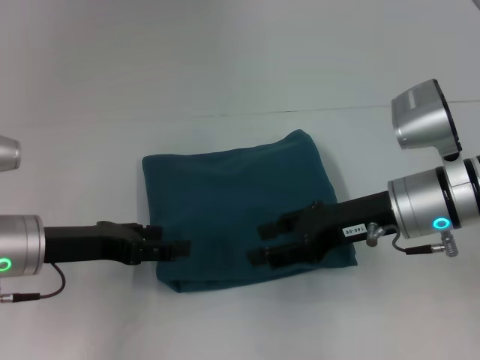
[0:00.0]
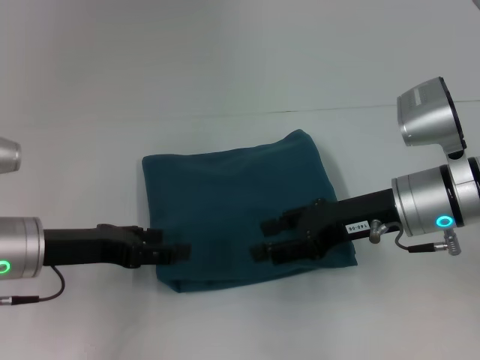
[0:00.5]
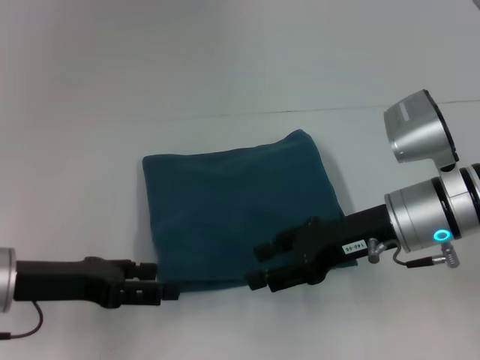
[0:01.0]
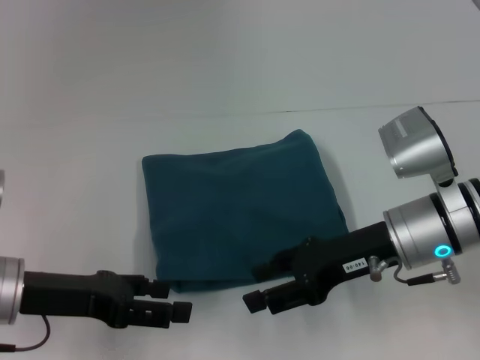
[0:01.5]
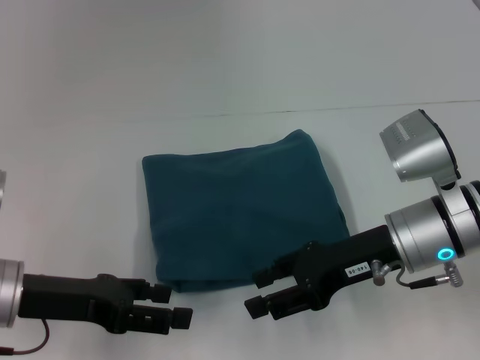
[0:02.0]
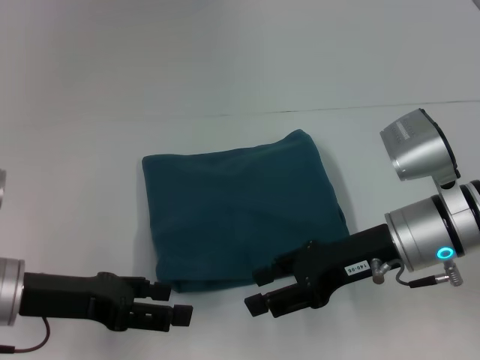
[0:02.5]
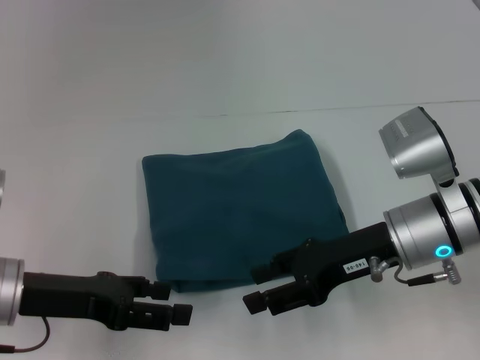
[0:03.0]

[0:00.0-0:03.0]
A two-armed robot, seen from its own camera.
0:01.5 to 0:03.0: Both grippers stay put.

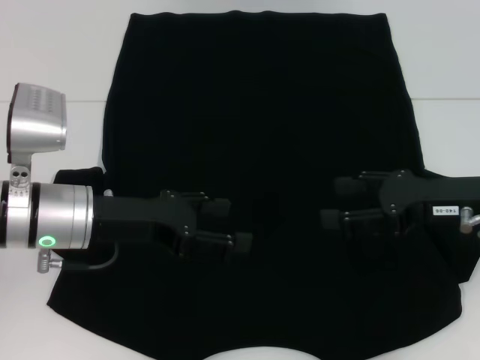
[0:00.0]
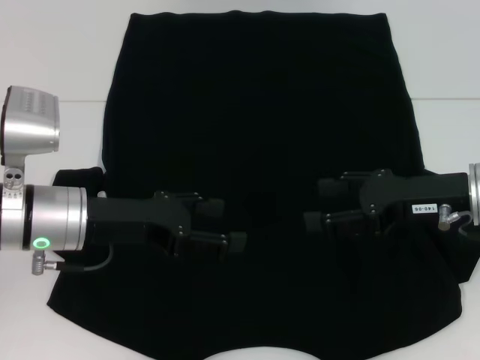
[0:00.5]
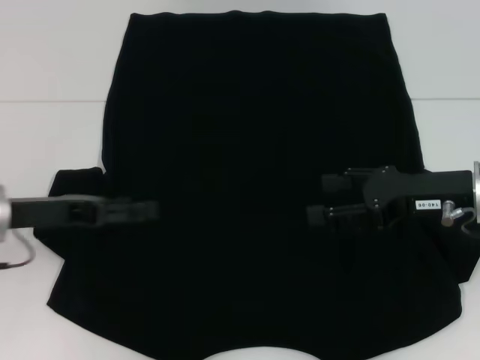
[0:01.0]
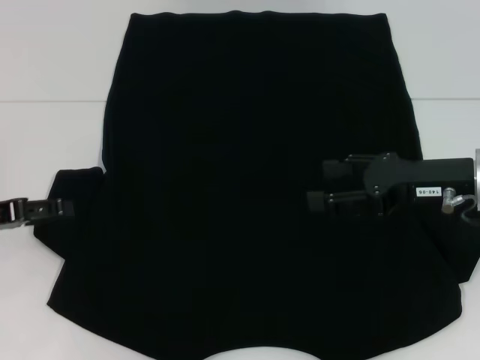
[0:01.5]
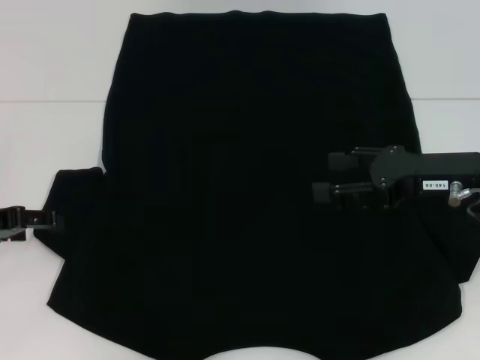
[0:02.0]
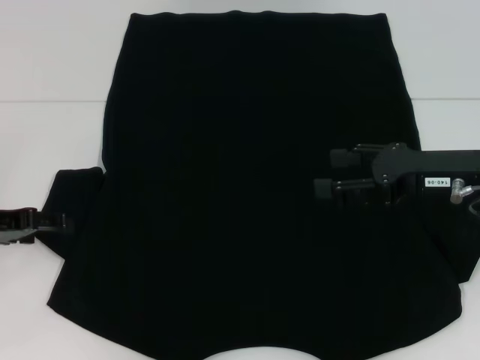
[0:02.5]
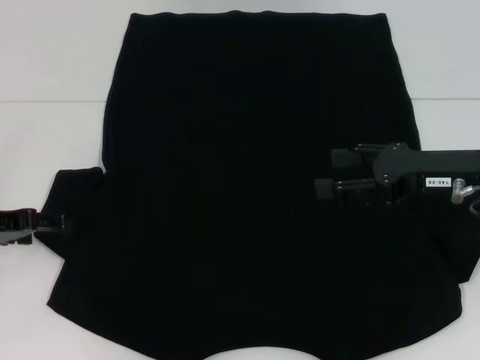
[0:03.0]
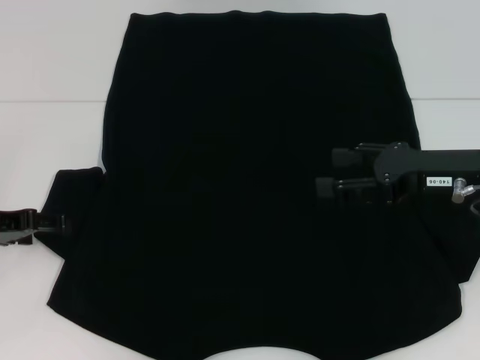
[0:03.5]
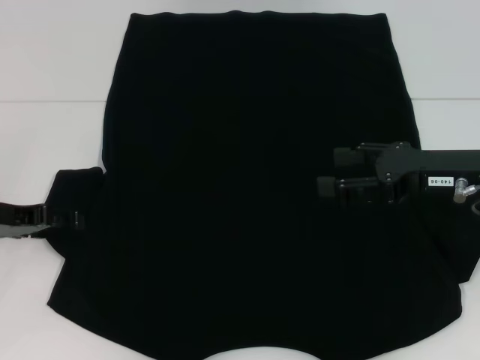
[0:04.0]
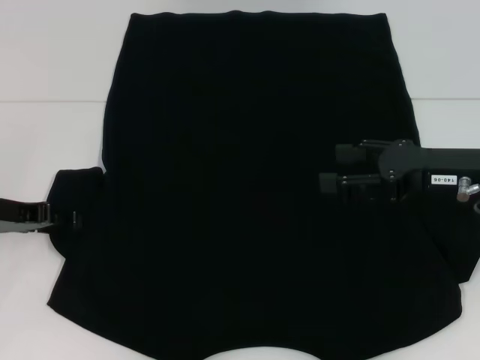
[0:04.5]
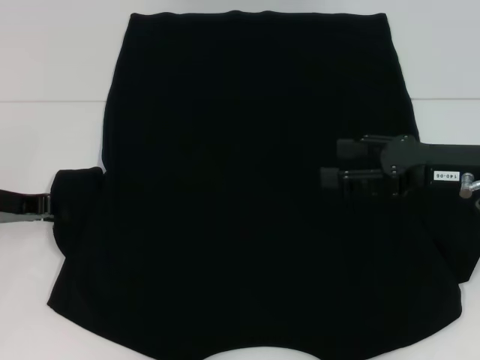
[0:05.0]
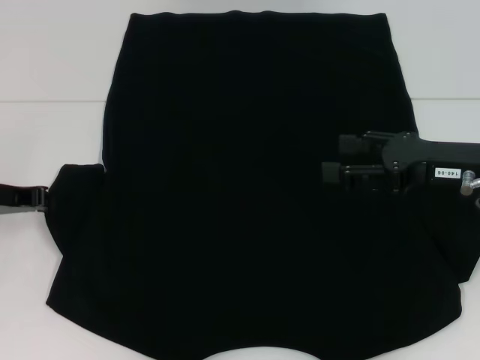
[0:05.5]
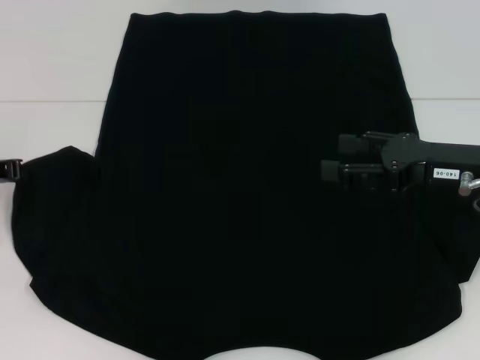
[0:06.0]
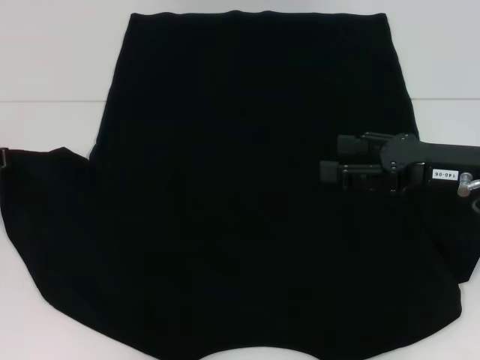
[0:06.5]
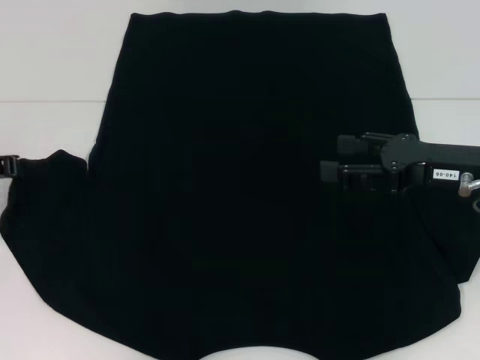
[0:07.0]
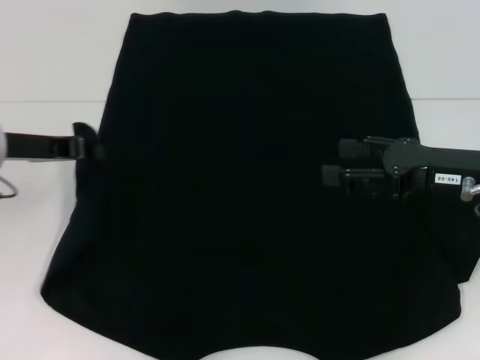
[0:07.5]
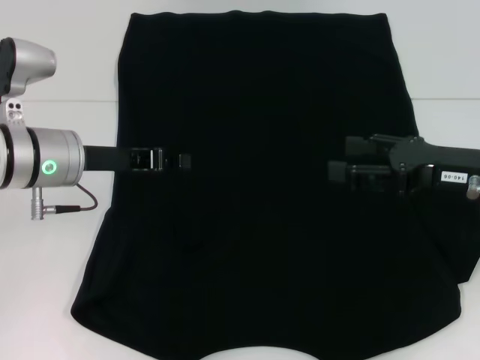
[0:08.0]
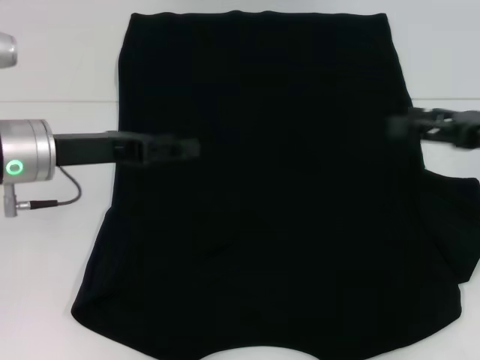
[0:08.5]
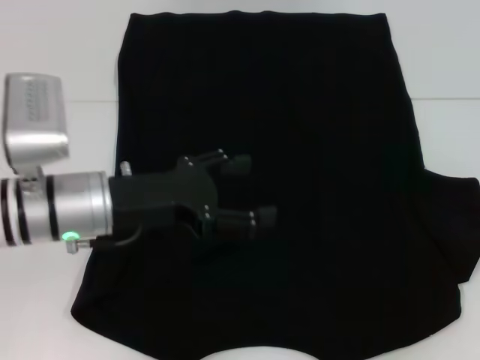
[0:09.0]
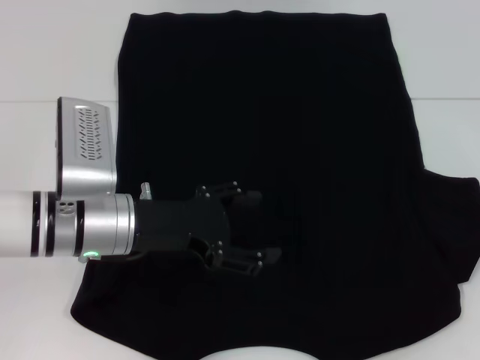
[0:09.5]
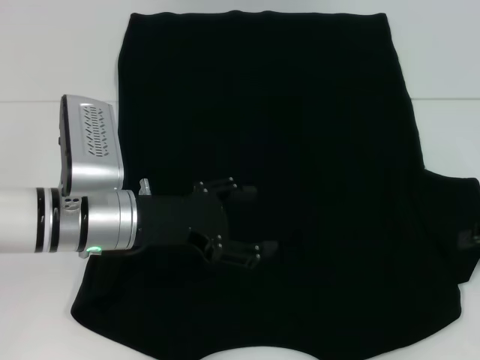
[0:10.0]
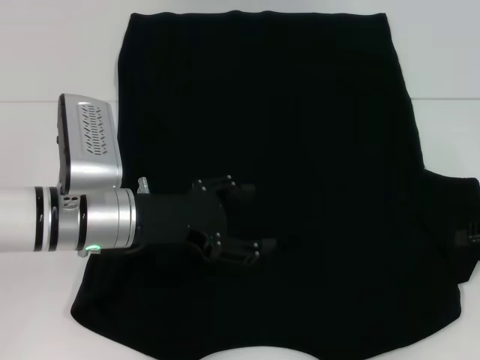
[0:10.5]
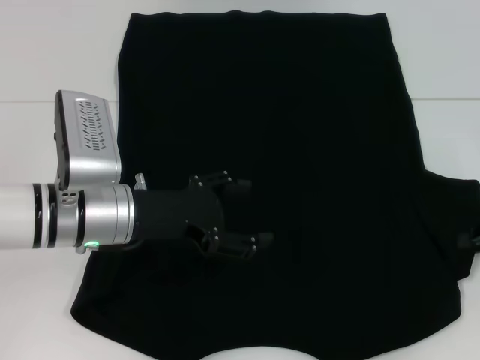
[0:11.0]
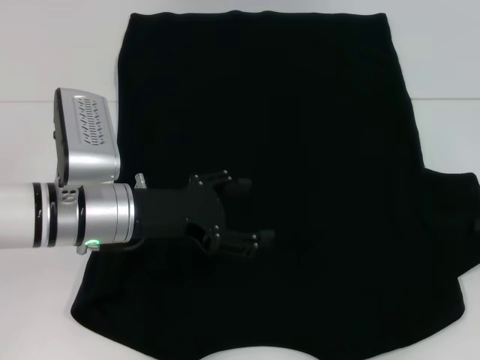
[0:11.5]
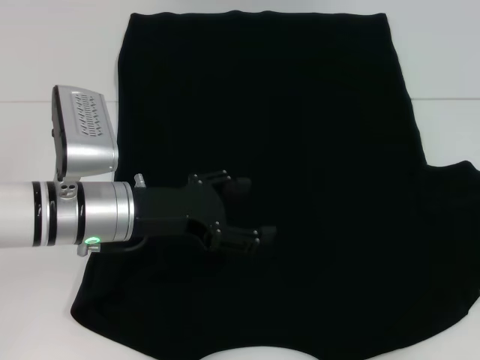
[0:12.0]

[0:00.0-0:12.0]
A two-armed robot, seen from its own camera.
Step, 0:00.0 to 0:08.5: Fold the bottom left sleeve with your left hand.
0:00.0 to 0:02.0: The left gripper shifts about 15 cm to the left.
0:02.0 to 0:04.0: There are only small adjustments of the grippers.
0:04.0 to 0:06.0: The left gripper closes its fingers.
0:06.0 to 0:08.0: The left gripper is displaced to the right by roughly 10 cm.
0:08.0 to 0:10.0: The left gripper moves roughly 5 cm, and opens its fingers. The right gripper travels to the right by approximately 10 cm.
0:10.0 to 0:12.0: The right gripper closes its fingers.

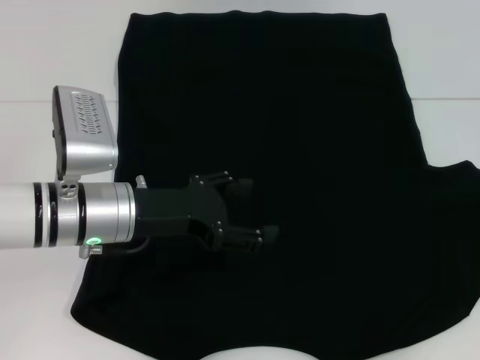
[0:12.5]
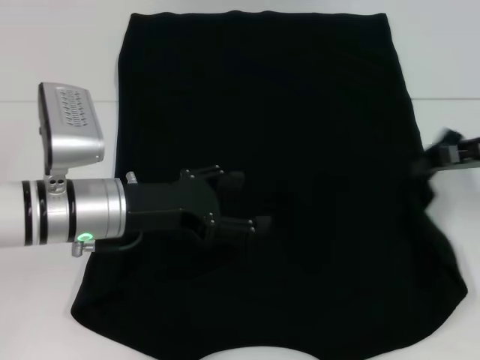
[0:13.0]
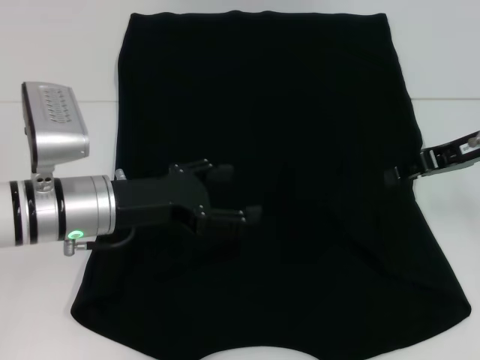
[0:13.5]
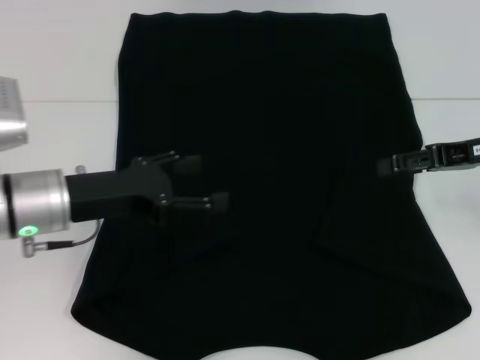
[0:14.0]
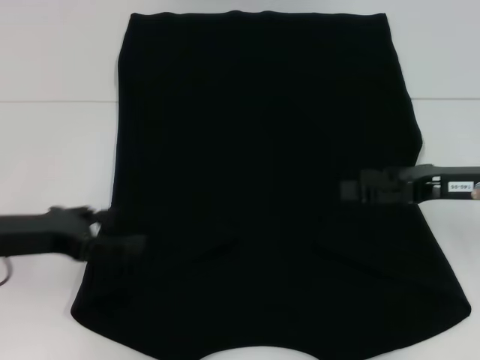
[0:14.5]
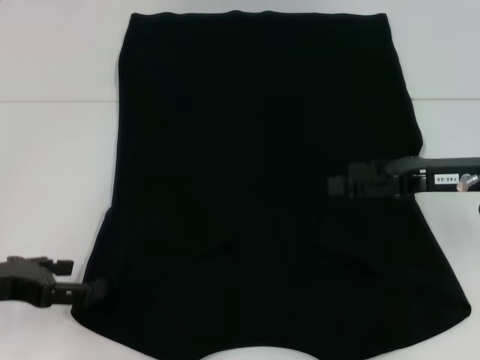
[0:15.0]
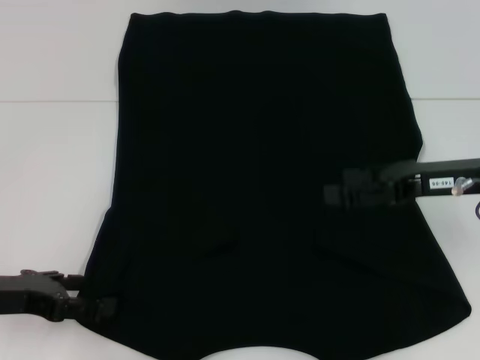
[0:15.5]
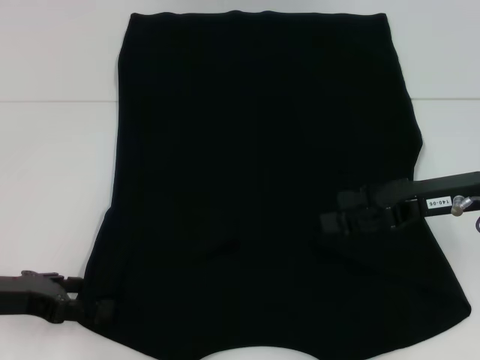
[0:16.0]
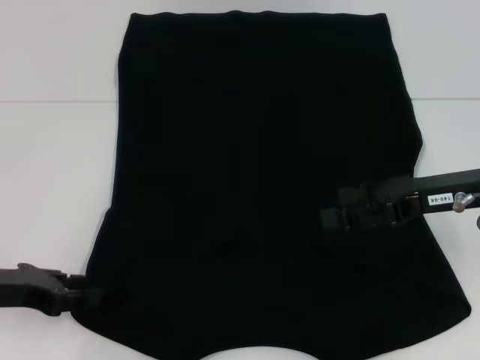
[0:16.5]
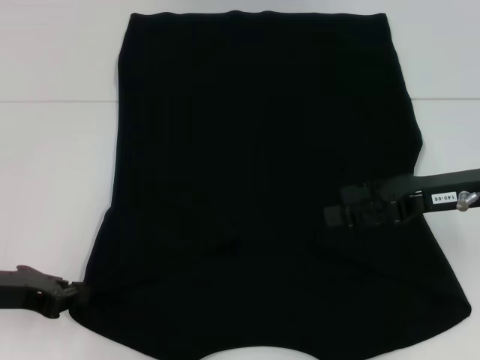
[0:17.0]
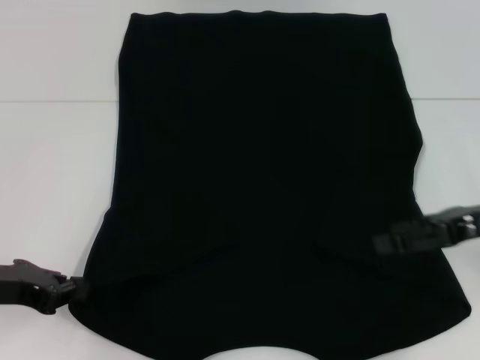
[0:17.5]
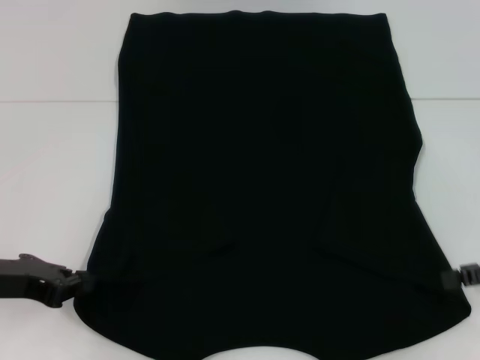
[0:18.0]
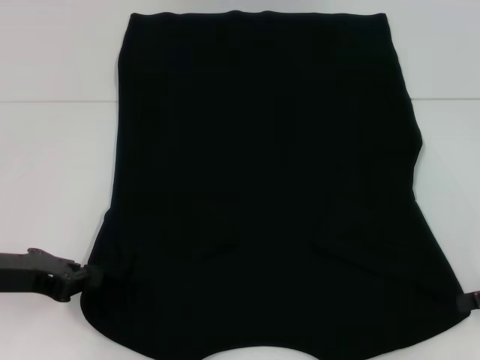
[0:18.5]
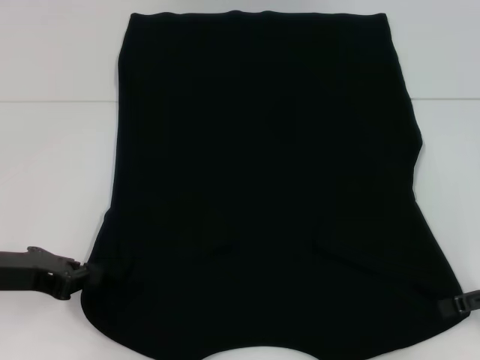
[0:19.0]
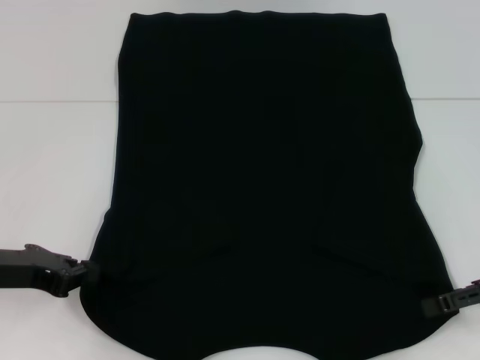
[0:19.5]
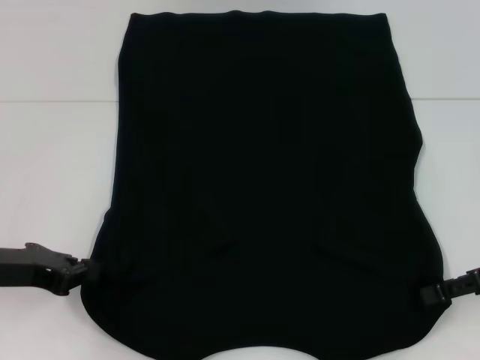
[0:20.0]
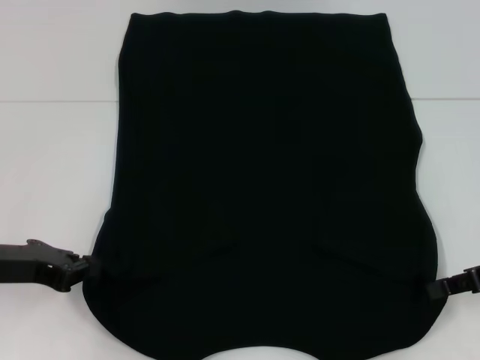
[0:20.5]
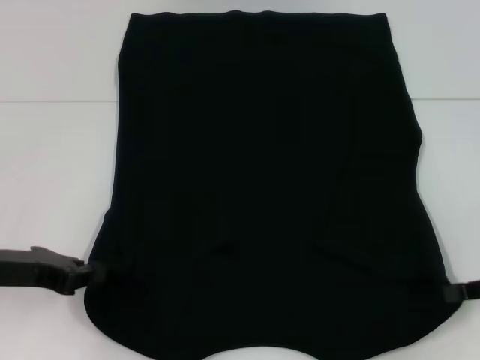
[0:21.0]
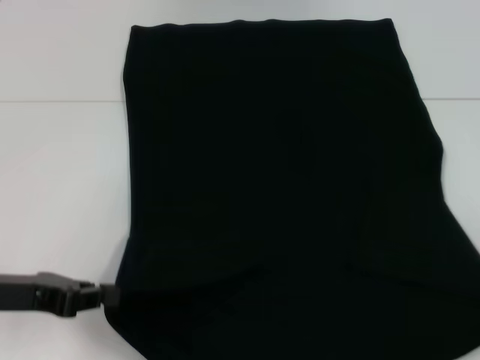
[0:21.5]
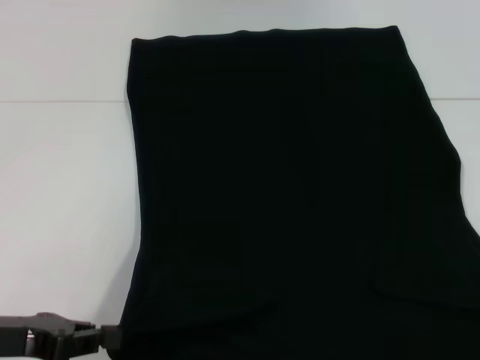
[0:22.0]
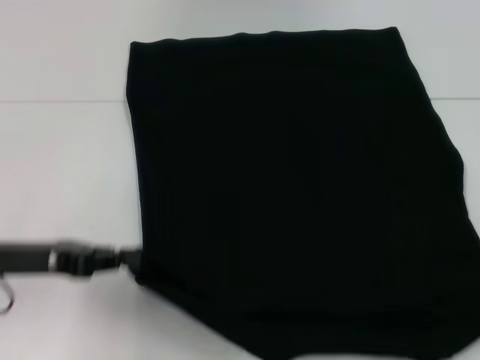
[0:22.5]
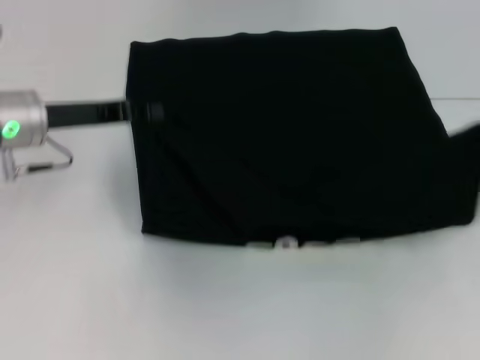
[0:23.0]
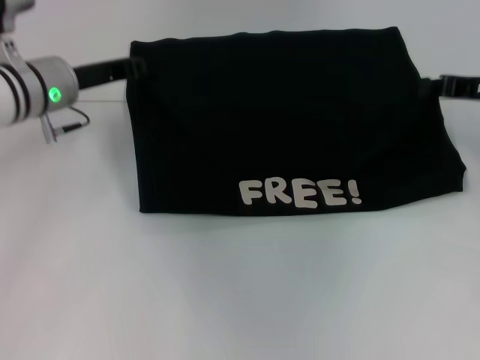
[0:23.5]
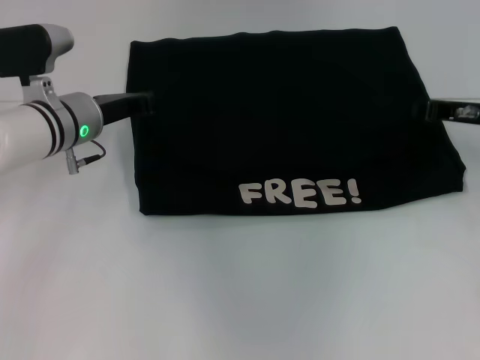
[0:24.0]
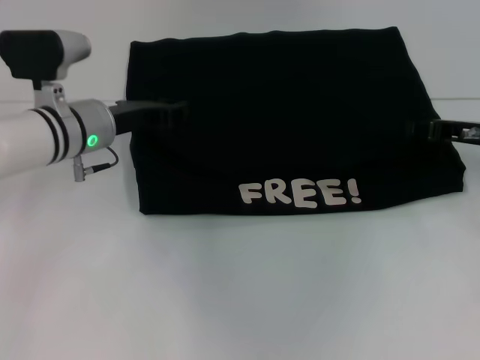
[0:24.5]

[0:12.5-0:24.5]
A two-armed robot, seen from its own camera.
Step, 0:14.0 to 0:20.0: Grab the bottom left corner with your left hand.
Step, 0:14.0 to 0:20.0: Grab the bottom right corner with your right hand.
0:12.5 to 0:14.5: The two grippers go some 10 cm to the left. The right gripper opens up.
0:14.5 to 0:16.5: There are only small adjustments of the grippers.
0:16.5 to 0:18.5: The left gripper closes its fingers. Meanwhile the right gripper moves to the right and backward, roughly 15 cm.
0:18.5 to 0:20.5: The right gripper closes its fingers.
0:20.5 to 0:22.5: The right gripper travels to the right and backward by some 15 cm, and closes up.
0:22.5 to 0:24.5: The left gripper moves forward and to the right, some 20 cm. The right gripper heads forward and to the left, covering approximately 25 cm.
